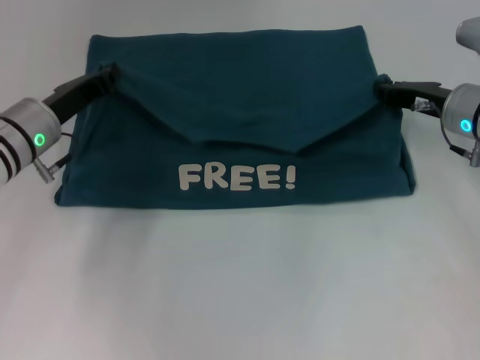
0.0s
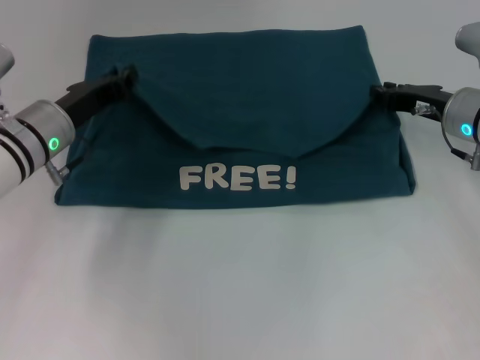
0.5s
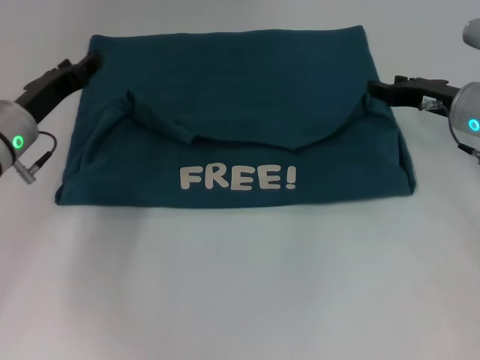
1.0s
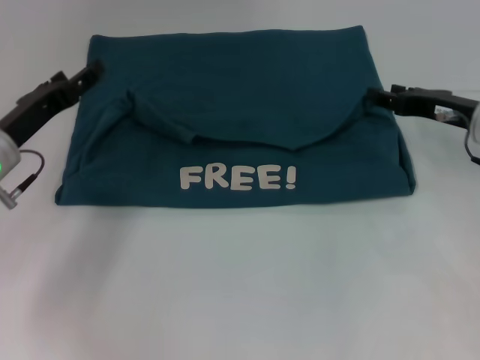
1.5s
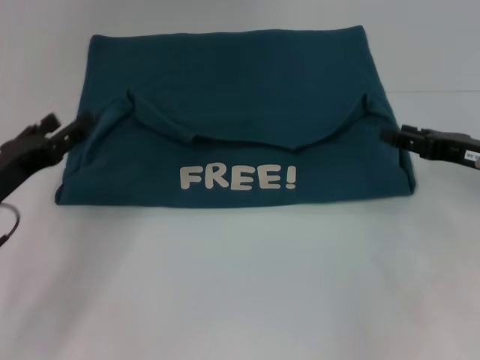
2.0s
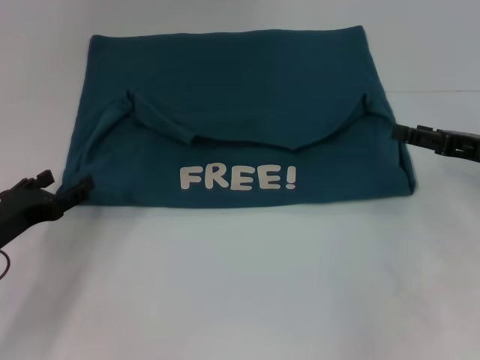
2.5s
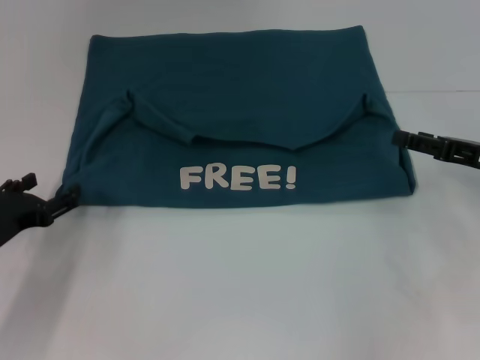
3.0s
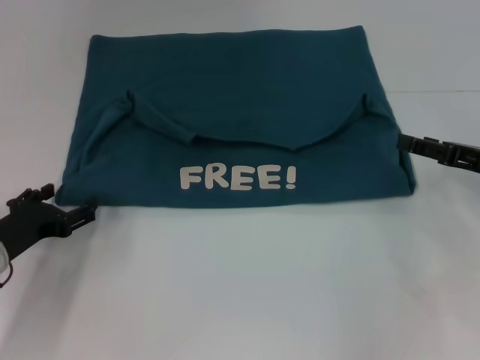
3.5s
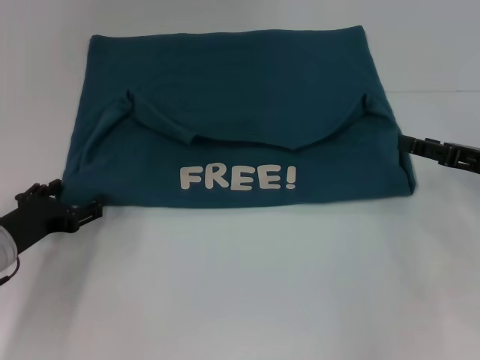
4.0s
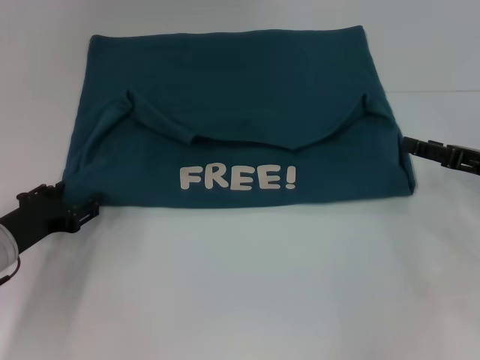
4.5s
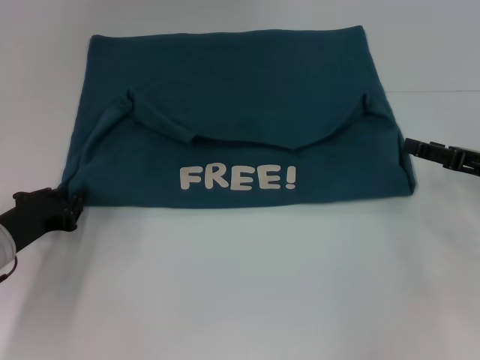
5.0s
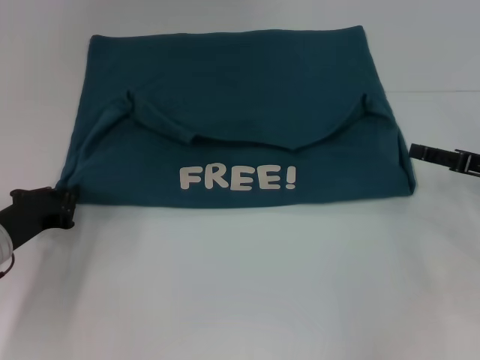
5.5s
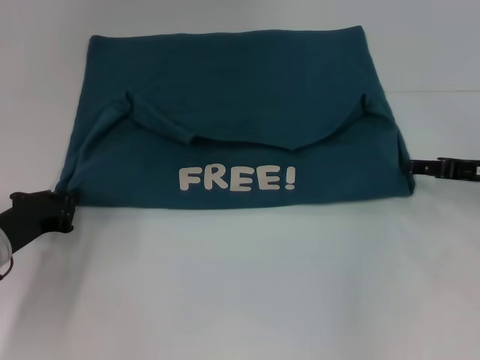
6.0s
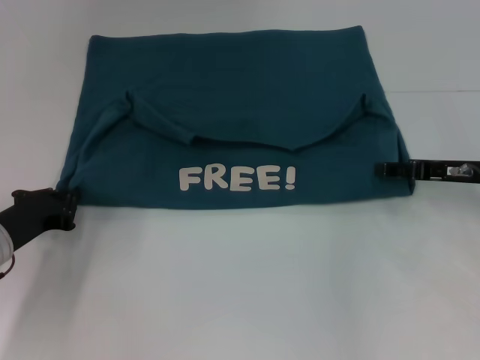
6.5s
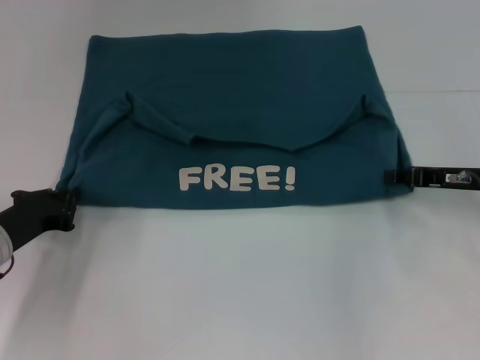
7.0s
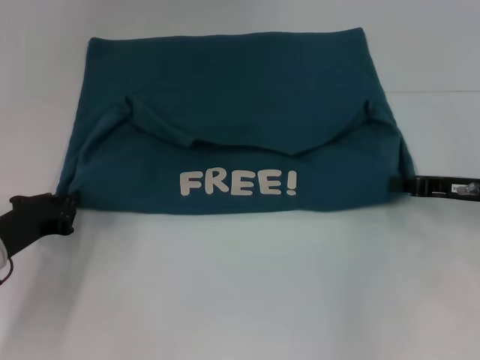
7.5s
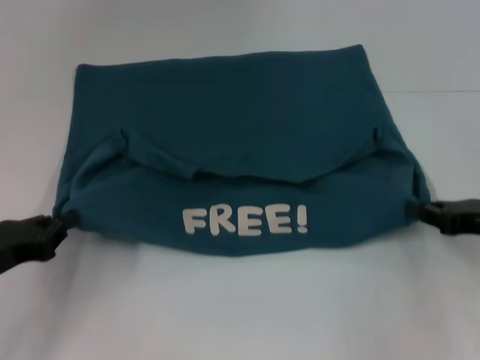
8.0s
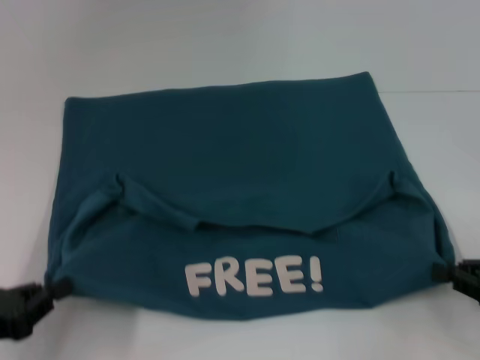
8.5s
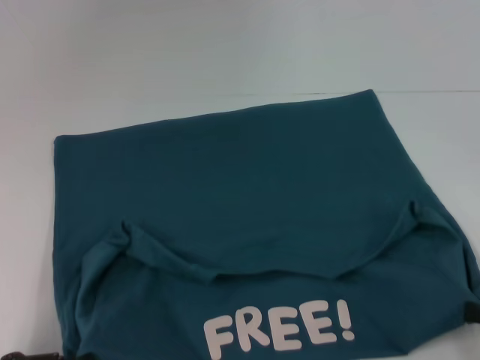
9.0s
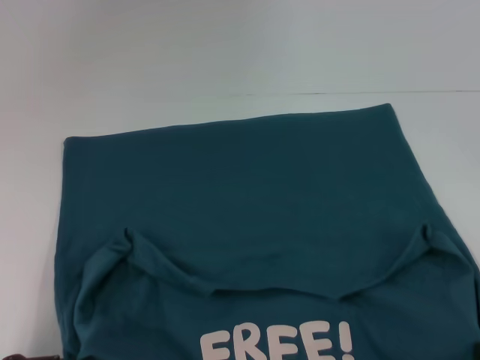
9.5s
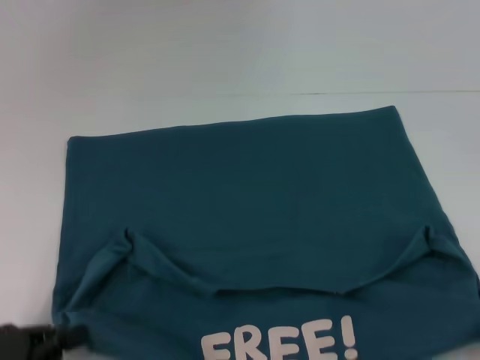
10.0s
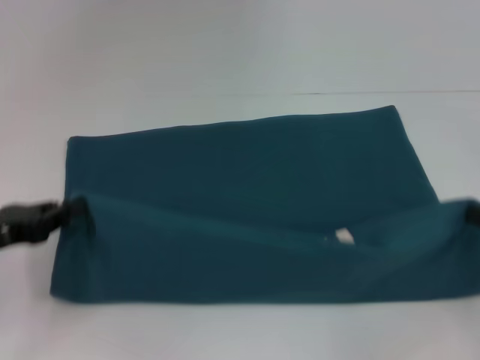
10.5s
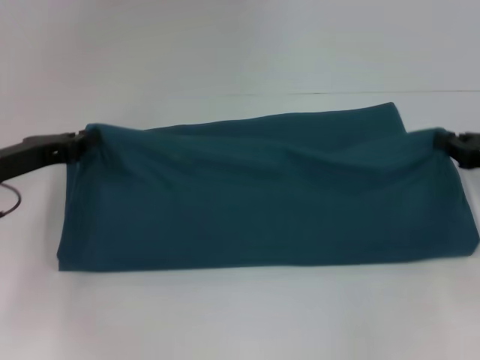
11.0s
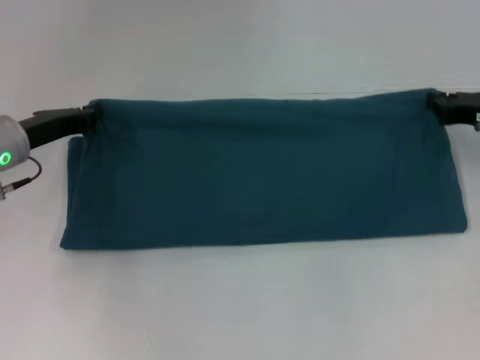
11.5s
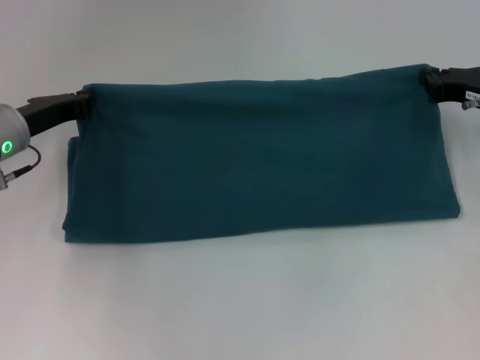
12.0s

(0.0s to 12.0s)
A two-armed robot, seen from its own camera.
Step, 1.5s - 9.5s: Pull the clothes with your left hand.
Step, 1.5s - 9.5s: Pull the clothes with your right hand.
0.0s - 2.0s: The right gripper travels backward and to the right by approximately 10 cm, and opens its fingers. Meanwhile the left gripper goes roughly 10 cm backward and to the left, and opens its fingers.
2.0s - 4.0s: The left gripper shifts about 5 cm downward.
4.0s - 6.0s: The left gripper closes its fingers.
6.0s - 8.0s: The grippers both shift backward by roughly 5 cm. The right gripper closes its fingers.
8.0s - 10.0s: The left gripper heads backward, covering some 10 cm; the right gripper is displaced backward and to the right by about 15 cm.
10.0s - 12.0s: Both grippers move forward, roughly 25 cm.

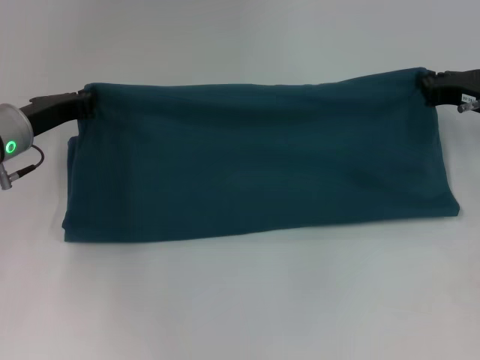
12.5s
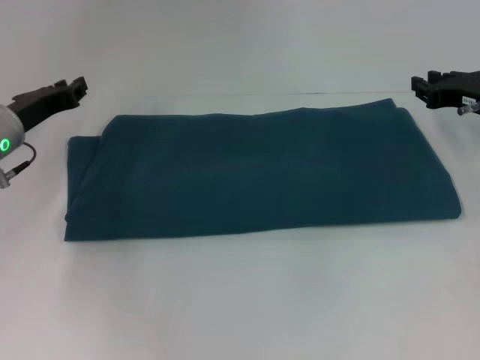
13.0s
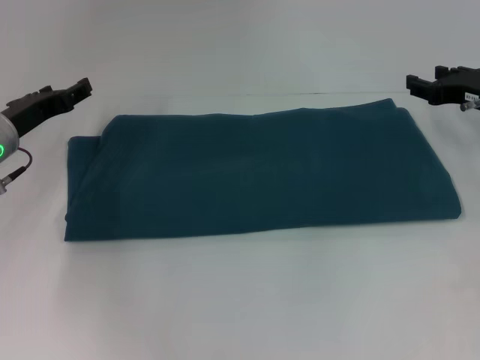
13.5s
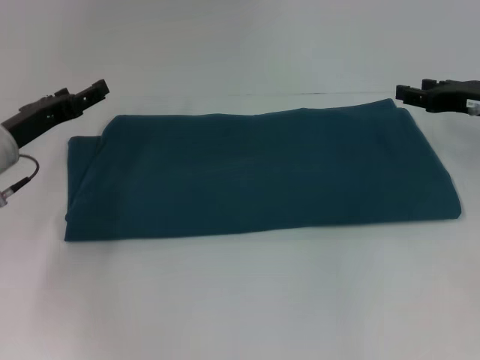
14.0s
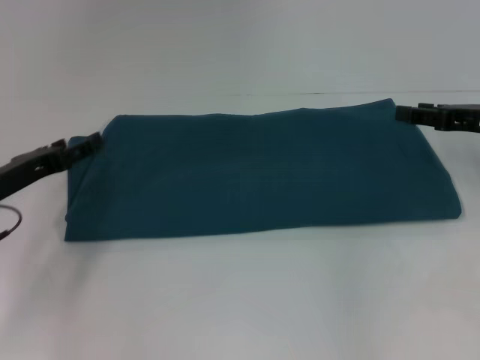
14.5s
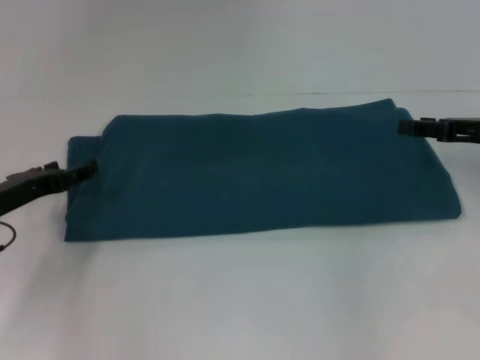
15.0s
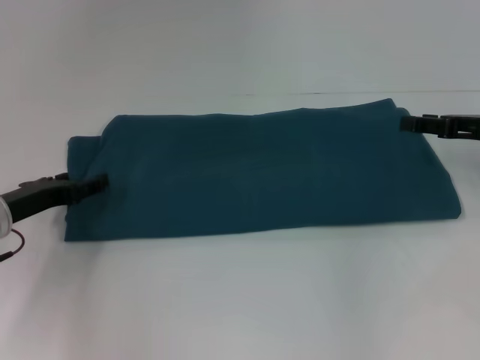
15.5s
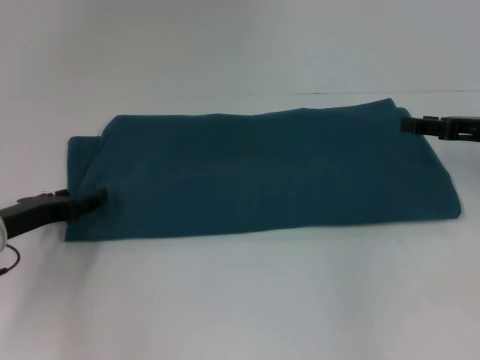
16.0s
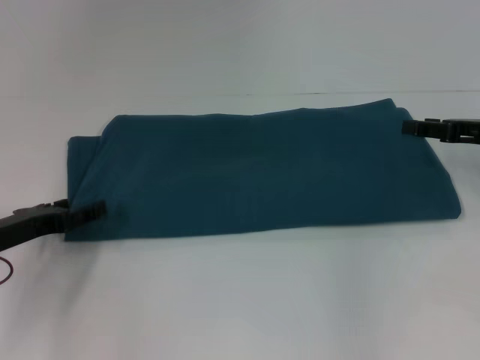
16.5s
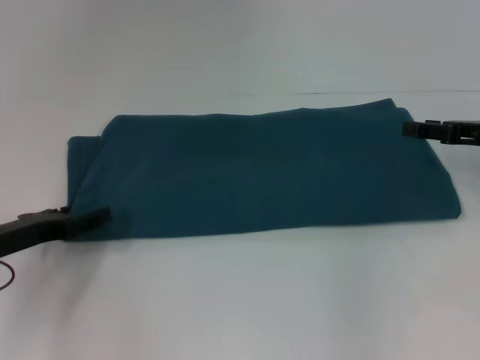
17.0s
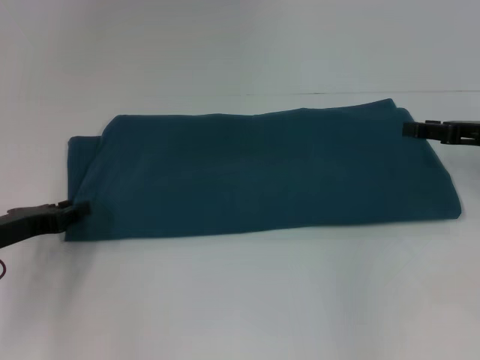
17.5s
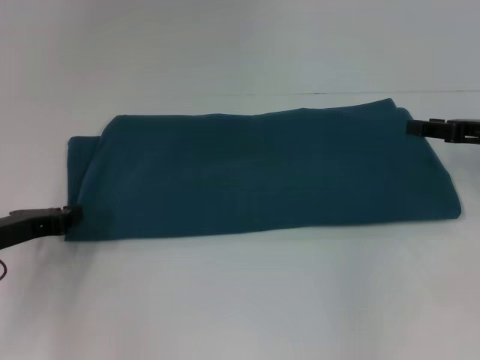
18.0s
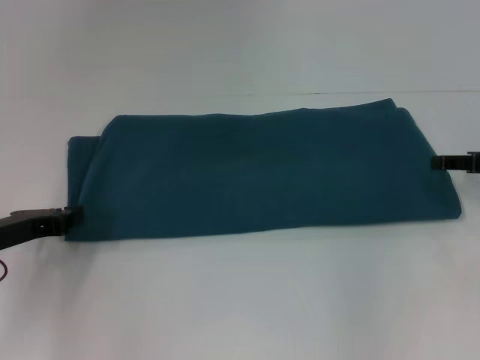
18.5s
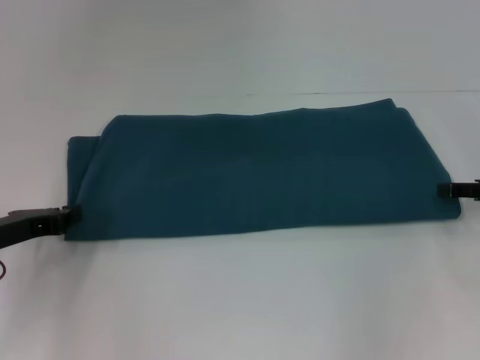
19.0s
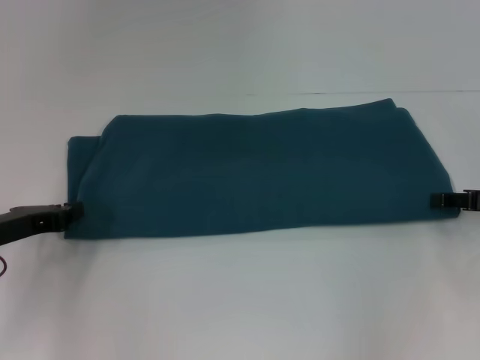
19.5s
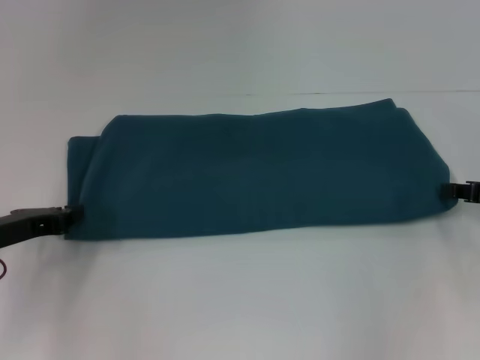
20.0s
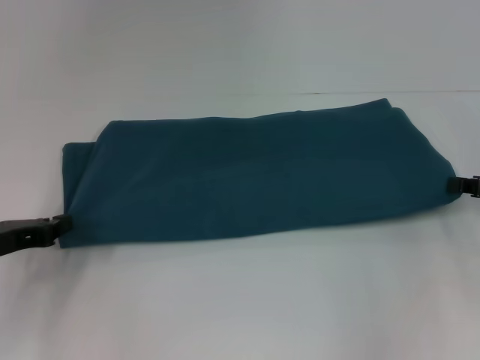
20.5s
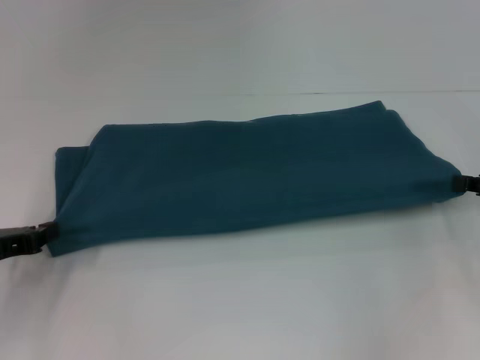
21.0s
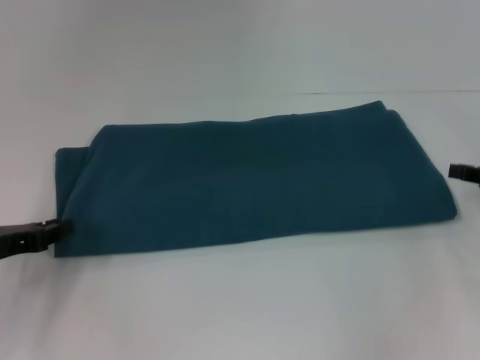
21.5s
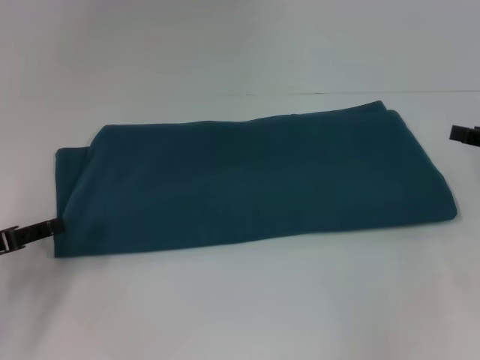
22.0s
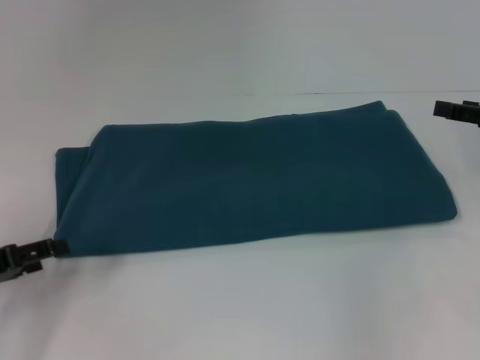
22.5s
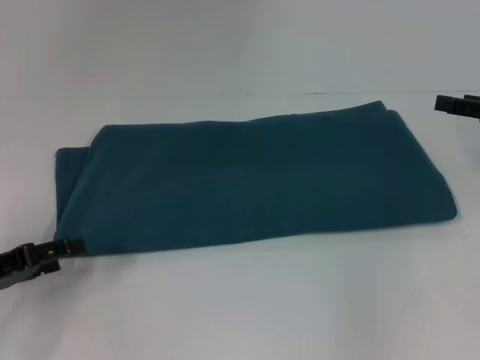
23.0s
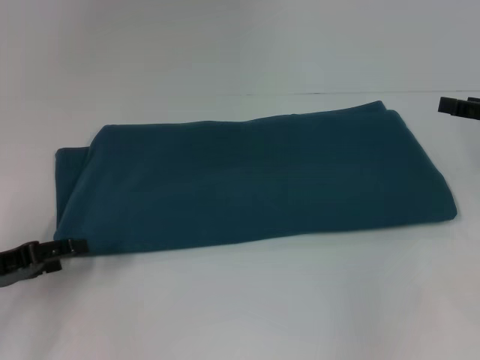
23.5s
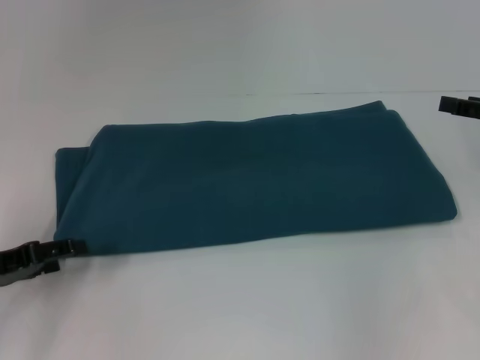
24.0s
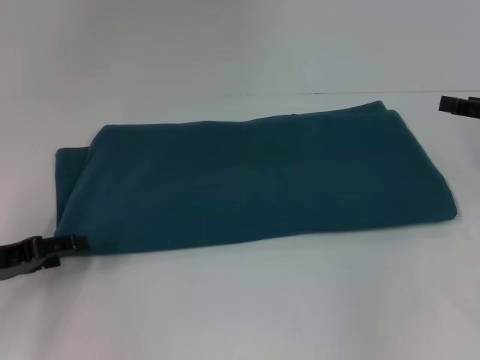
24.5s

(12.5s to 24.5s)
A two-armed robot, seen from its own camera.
12.5s - 14.5s: The right gripper opens. Meanwhile the left gripper goes some 5 cm backward, and opens.
14.5s - 16.5s: There are only small adjustments of the grippers.
18.5s - 20.5s: The right gripper closes its fingers.
20.5s - 22.5s: The left gripper changes place by approximately 5 cm, and opens, while the right gripper moves upward, about 5 cm, and opens.
22.5s - 24.5s: The grippers move only a little.

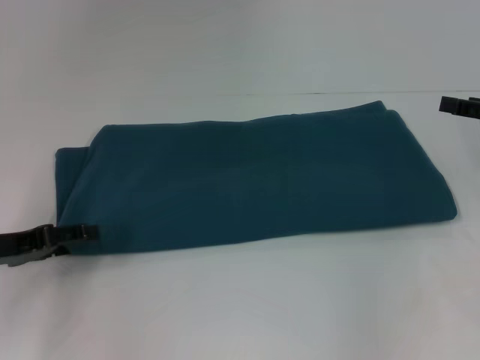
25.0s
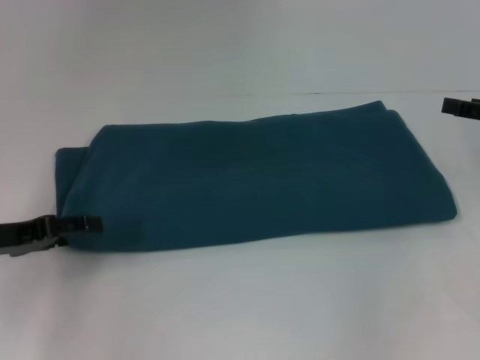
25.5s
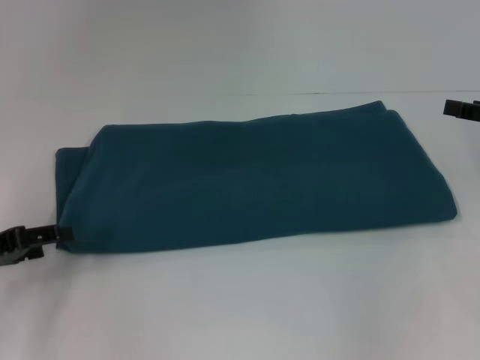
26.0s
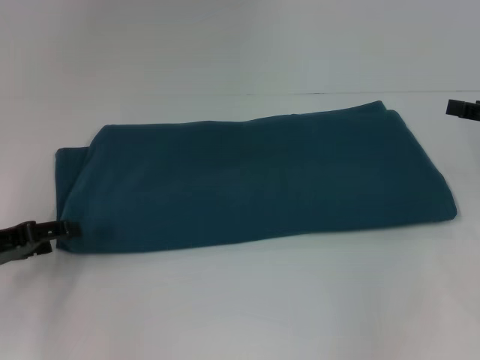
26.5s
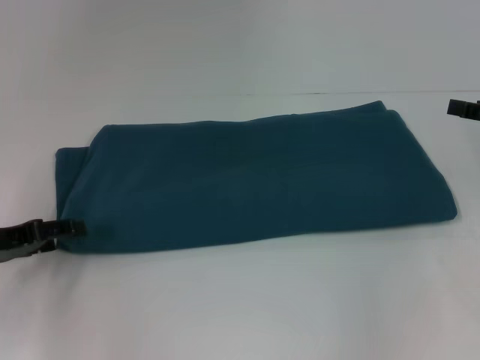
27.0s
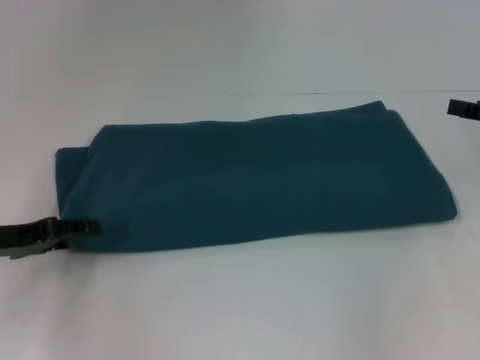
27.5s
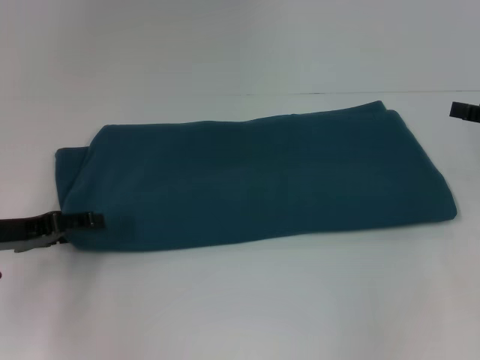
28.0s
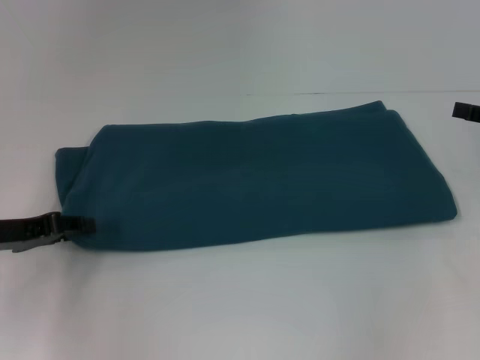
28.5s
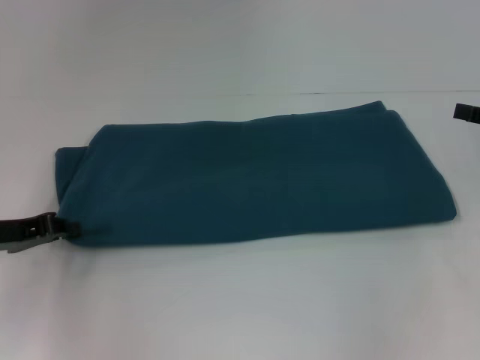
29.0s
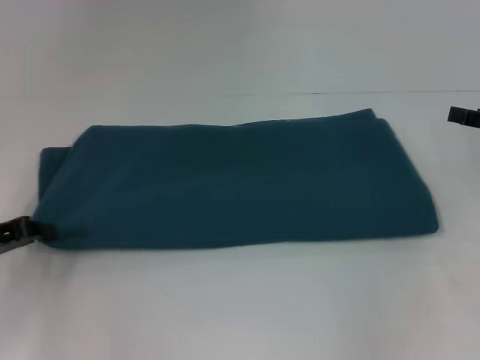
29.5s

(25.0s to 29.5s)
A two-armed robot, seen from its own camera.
25.0s - 27.0s: There are only small adjustments of the grippers.
27.0s - 29.5s: The left gripper closes.
